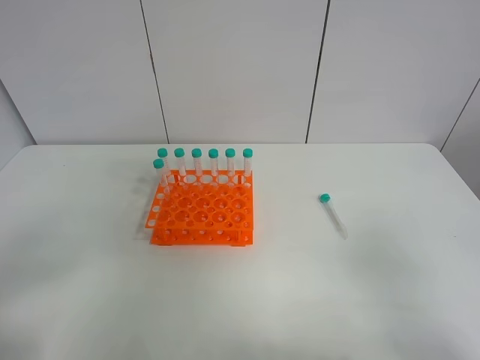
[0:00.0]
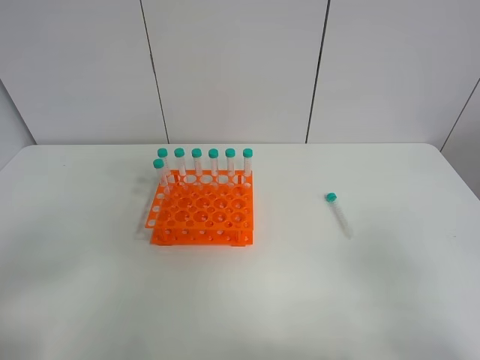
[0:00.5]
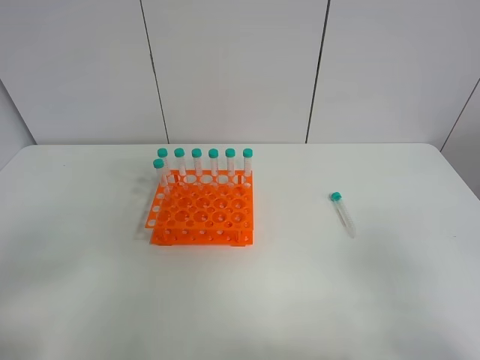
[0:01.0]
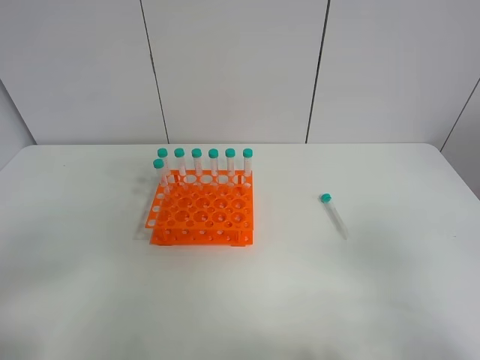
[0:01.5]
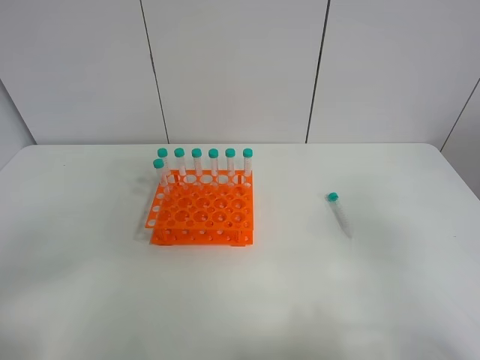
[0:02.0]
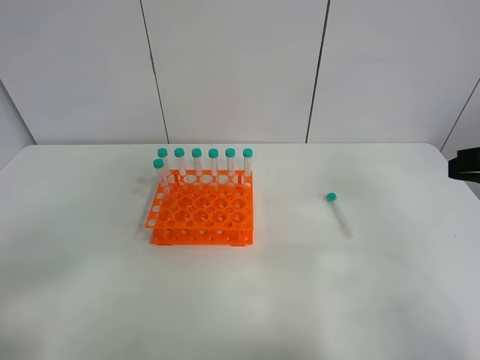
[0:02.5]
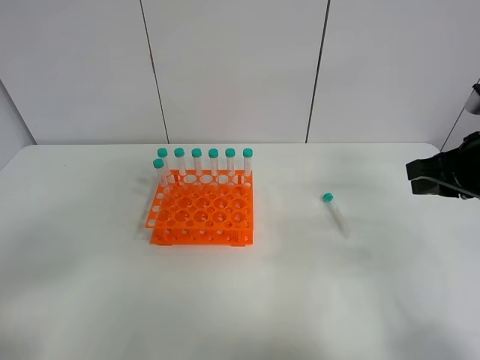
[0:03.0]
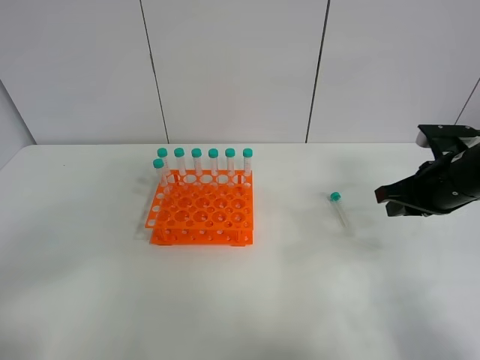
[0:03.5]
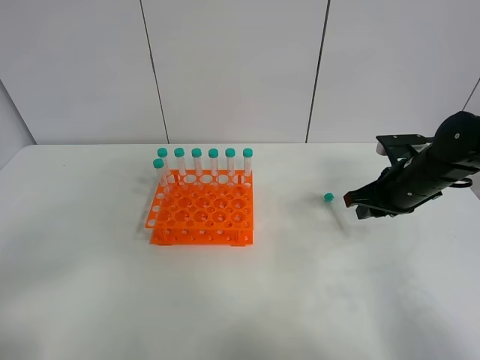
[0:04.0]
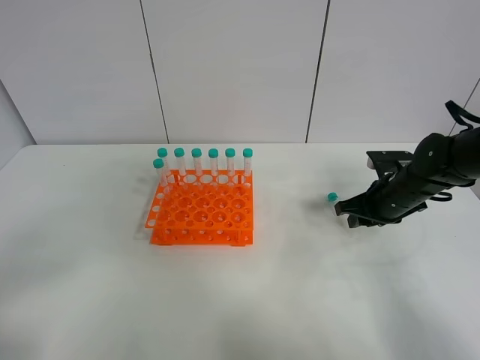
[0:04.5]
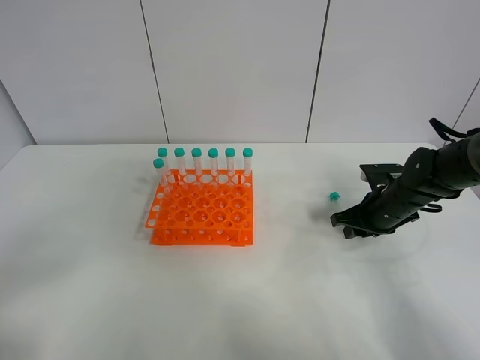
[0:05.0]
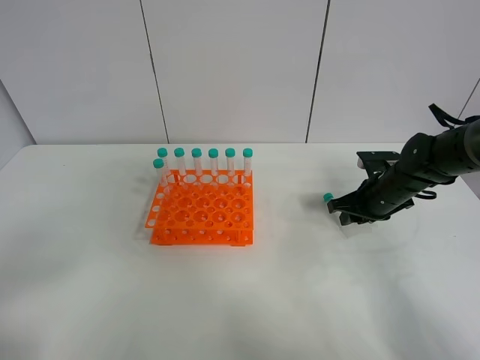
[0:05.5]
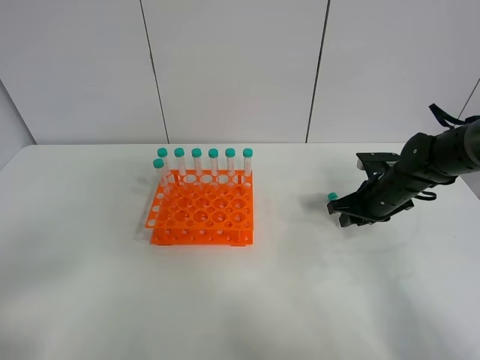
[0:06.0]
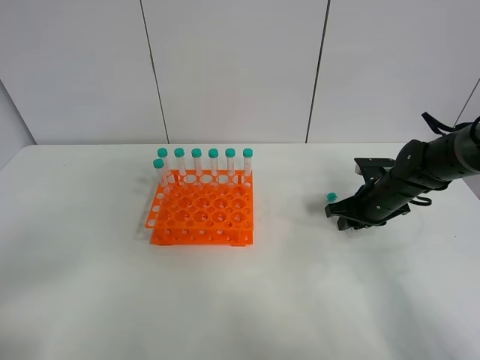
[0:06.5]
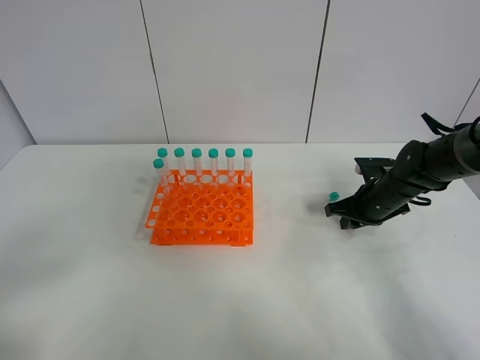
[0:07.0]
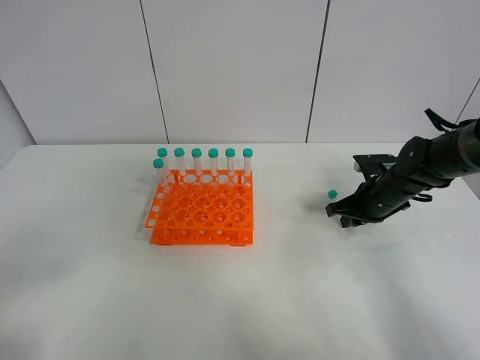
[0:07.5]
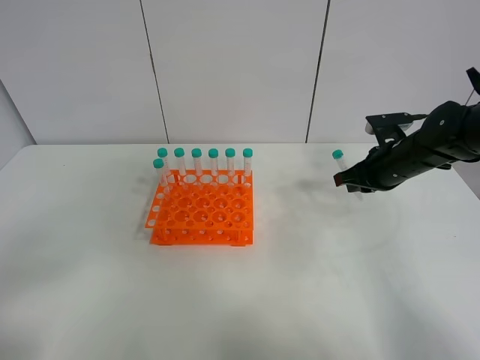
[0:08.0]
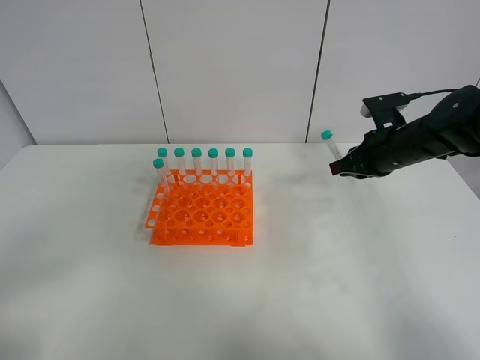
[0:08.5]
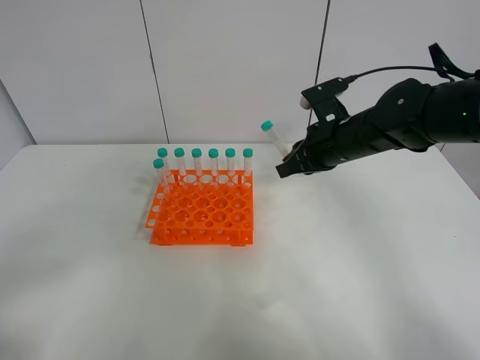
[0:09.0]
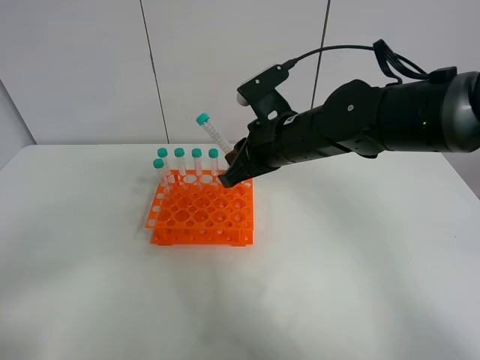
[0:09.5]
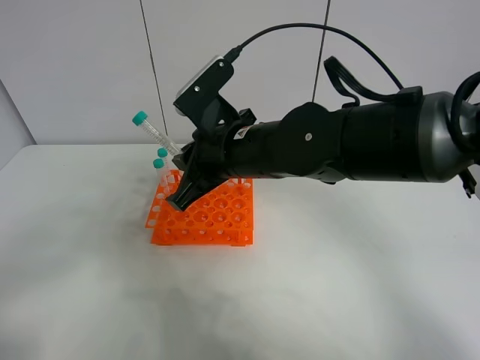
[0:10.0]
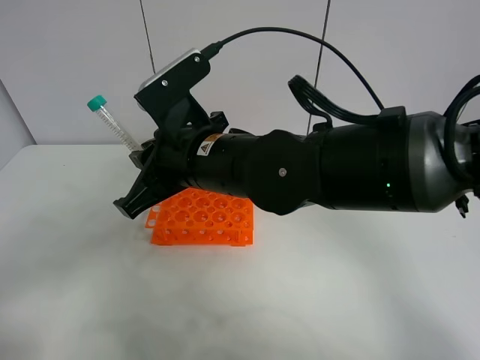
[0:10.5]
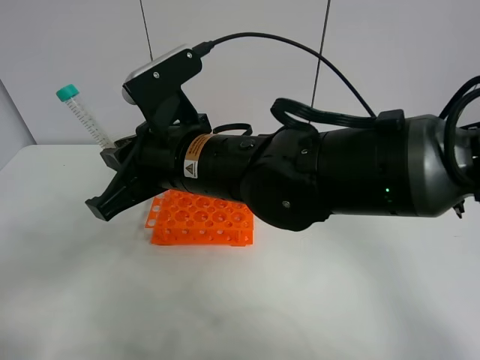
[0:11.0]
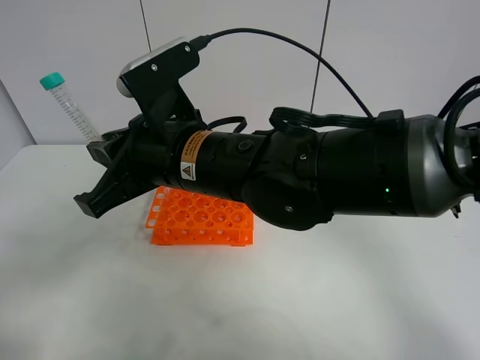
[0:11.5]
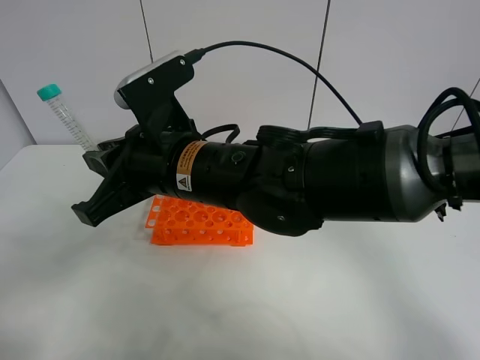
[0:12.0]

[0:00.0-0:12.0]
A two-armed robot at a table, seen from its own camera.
Task of the whole recording: Put the test tube on the table back onto the test tube rack.
Step, 0.0 to 8.0 s: Pick up the test tube with the right gripper.
2.0 to 4.0 s: The right gripper is displaced forward and downward by approximately 30 cm, and opens up.
4.0 to 6.0 s: The right gripper heads downward, covering roughly 5 cm.
6.0 to 8.0 s: The right gripper goes approximately 5 cm upward, and closes.
8.0 to 10.0 s: The right gripper travels to the left by approximately 25 cm.
10.0 to 12.0 s: The right gripper travels to the left by approximately 5 cm.

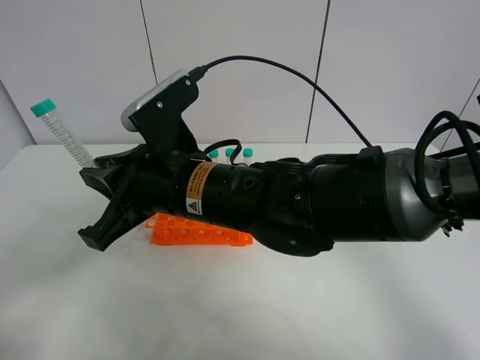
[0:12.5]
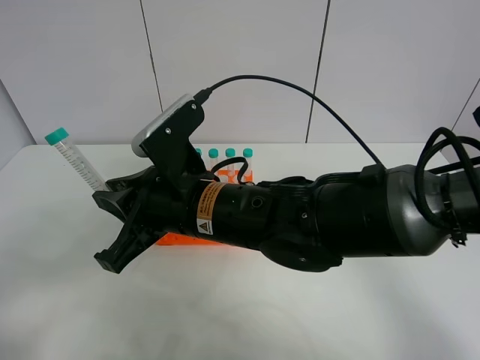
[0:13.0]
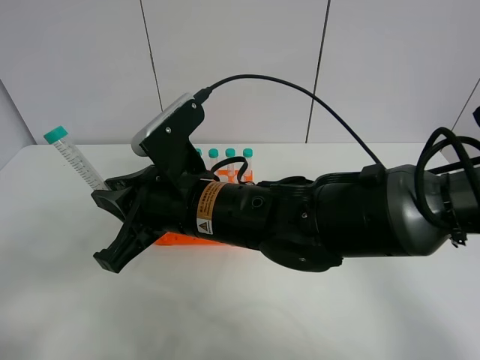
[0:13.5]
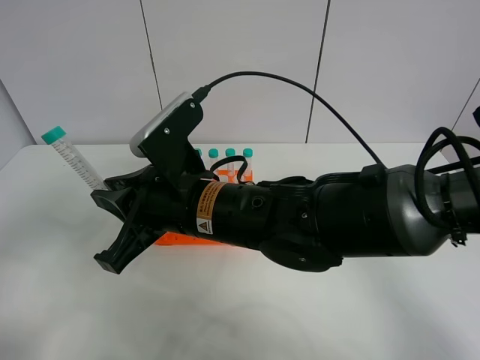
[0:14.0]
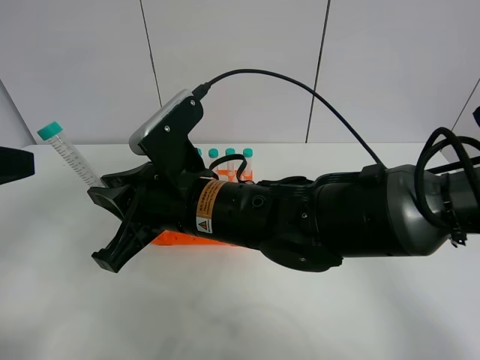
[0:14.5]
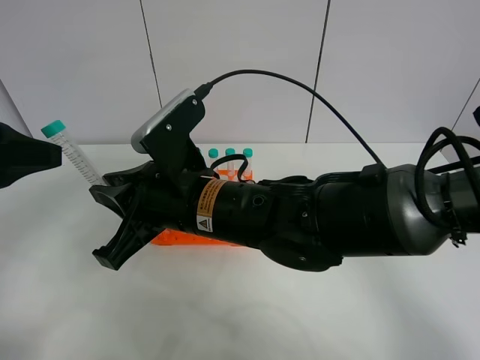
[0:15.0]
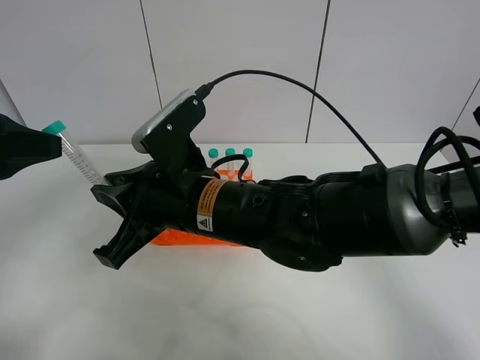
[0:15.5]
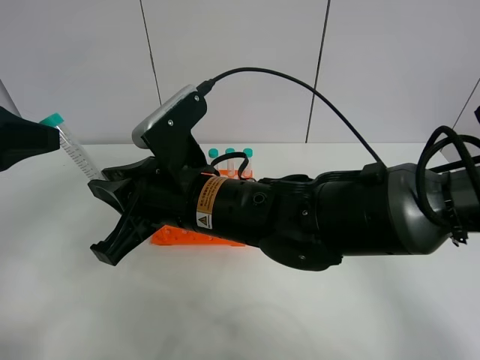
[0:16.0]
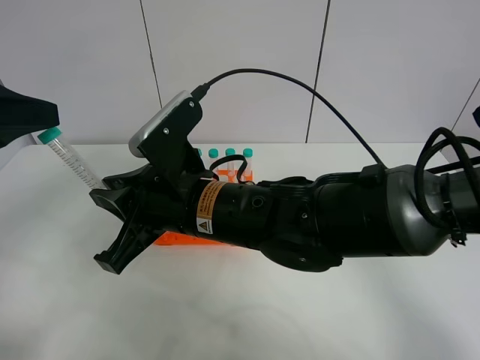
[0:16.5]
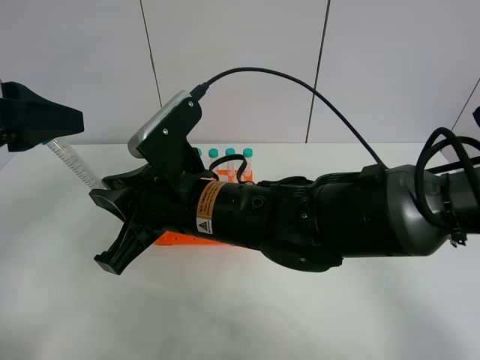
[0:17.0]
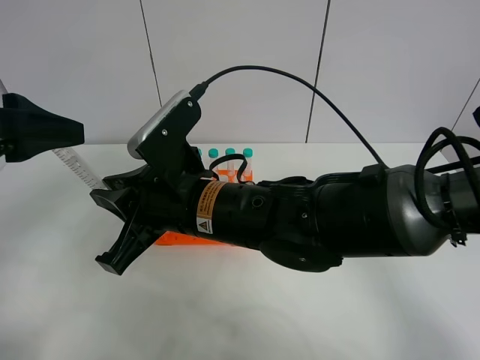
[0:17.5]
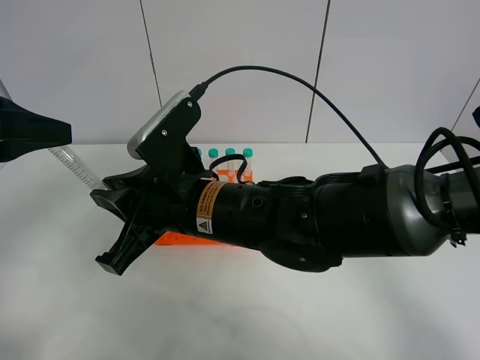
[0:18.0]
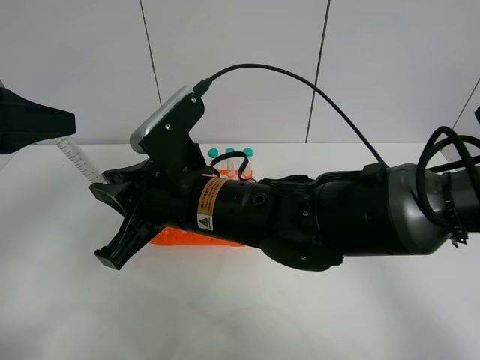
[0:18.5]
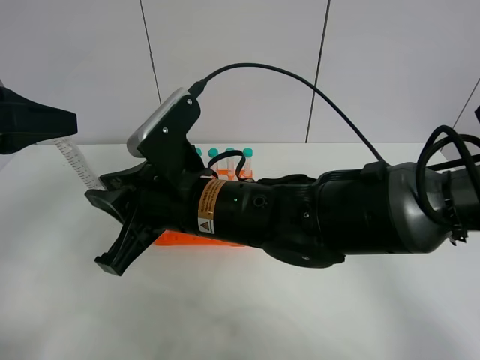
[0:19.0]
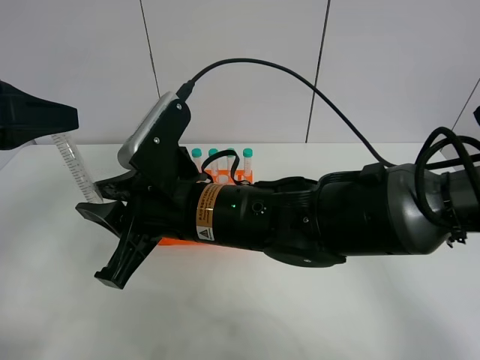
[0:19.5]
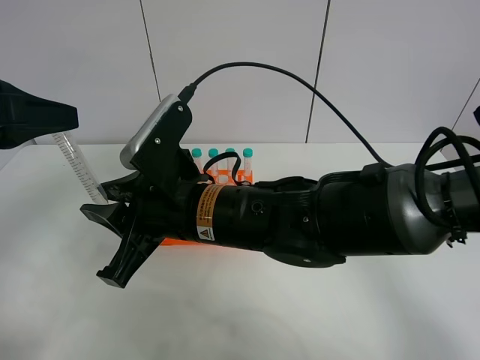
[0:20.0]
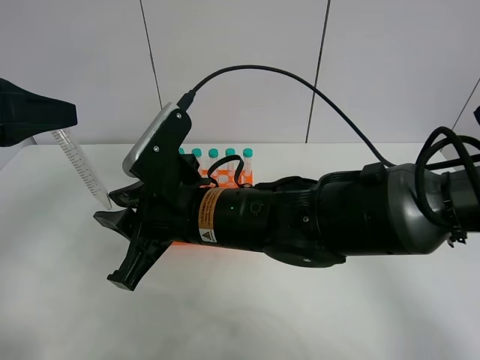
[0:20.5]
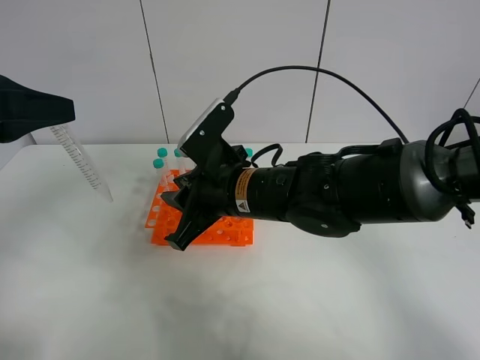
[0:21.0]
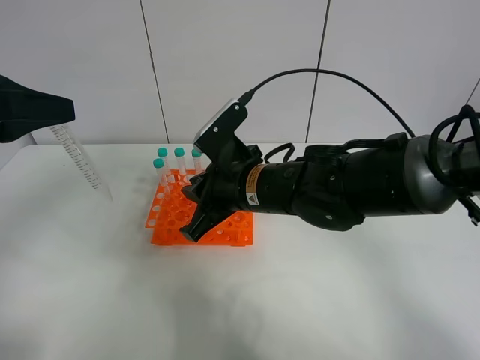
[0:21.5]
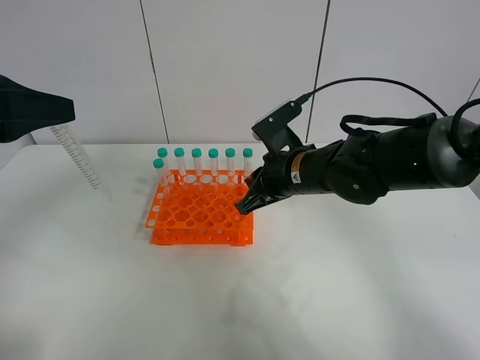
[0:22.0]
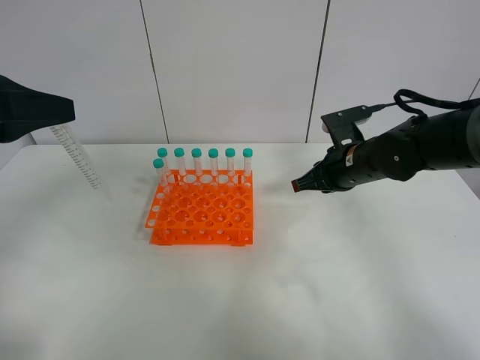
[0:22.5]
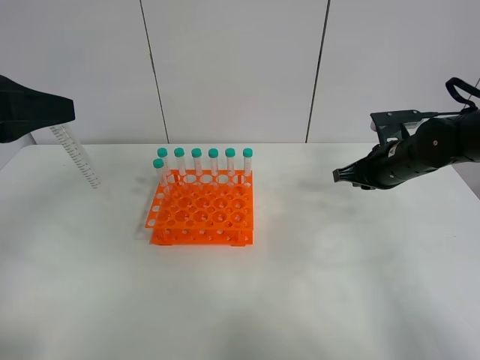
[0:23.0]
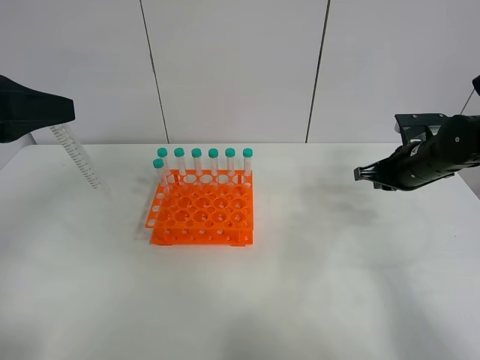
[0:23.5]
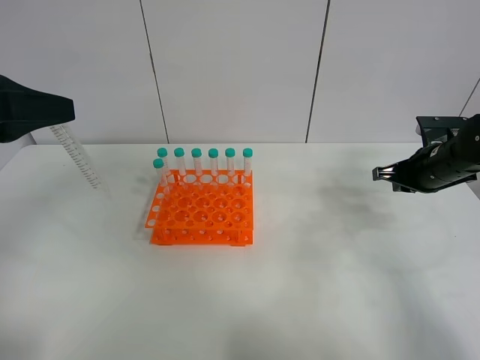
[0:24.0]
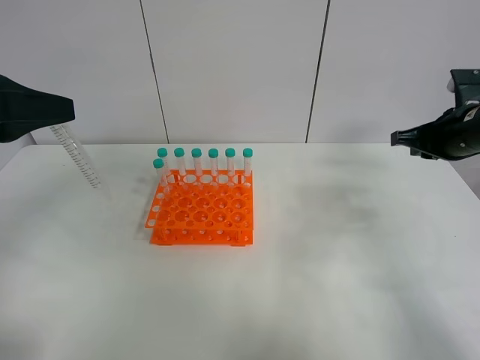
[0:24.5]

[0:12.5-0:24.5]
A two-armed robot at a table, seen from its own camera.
Task of the whole recording: Put the test tube on the table back onto the test tube rack.
Step, 12.5 to 21.5 s: Move the test tube from the right gripper to the left gripper.
12.5 to 14.5 s: The left gripper moves forward and upward, approximately 15 cm.
14.5 to 16.5 s: The grippers move only a little.
16.5 to 18.5 s: The left gripper closes.
18.5 to 20.5 s: The right gripper opens.
20.5 to 22.5 s: The right gripper travels to the right and forward by approximately 25 cm, and closes up.
22.5 to 24.5 s: The right gripper travels to the right and upward by approximately 15 cm.

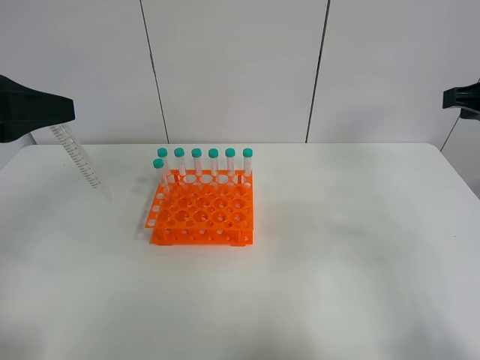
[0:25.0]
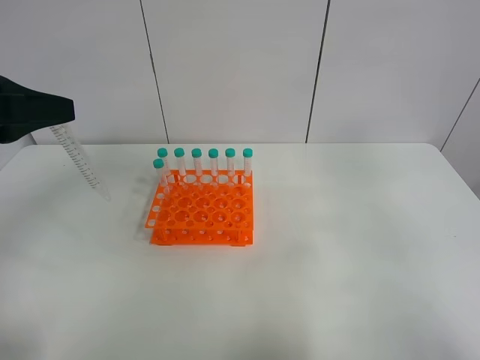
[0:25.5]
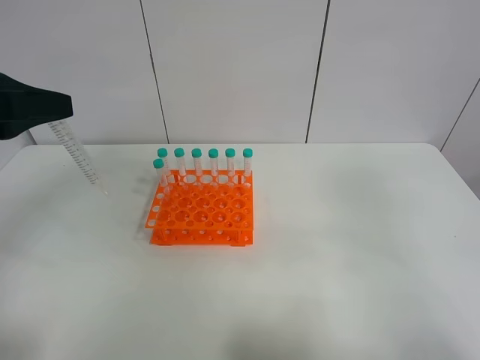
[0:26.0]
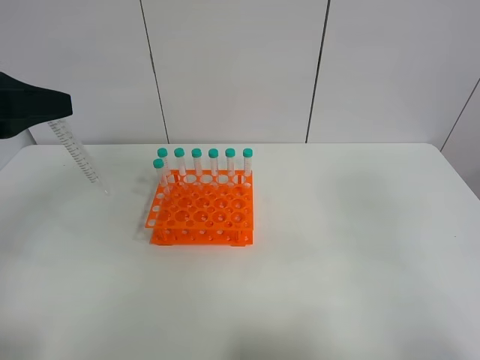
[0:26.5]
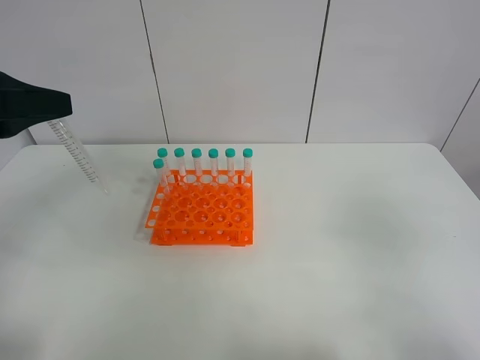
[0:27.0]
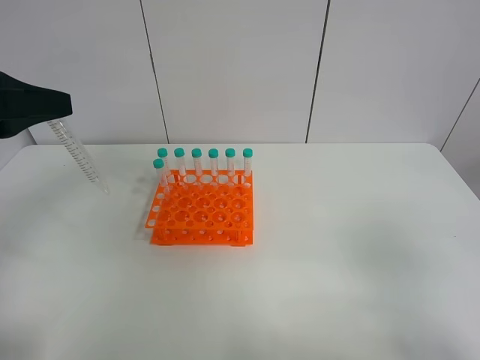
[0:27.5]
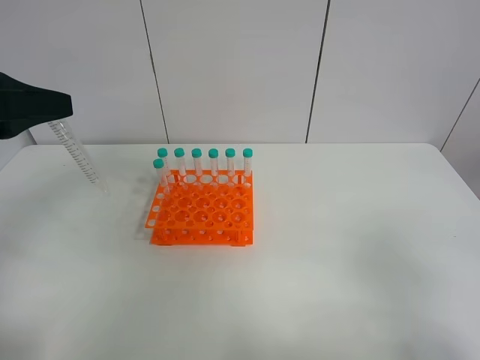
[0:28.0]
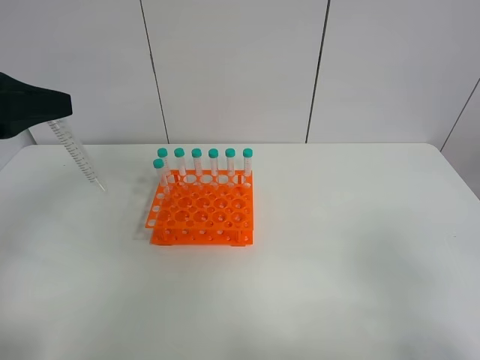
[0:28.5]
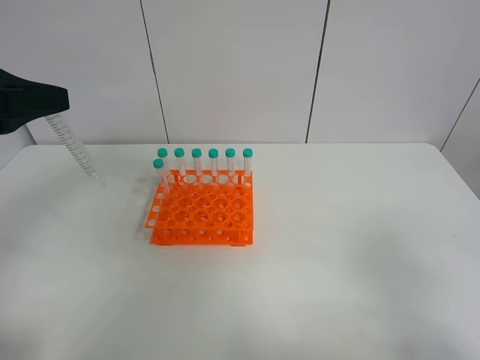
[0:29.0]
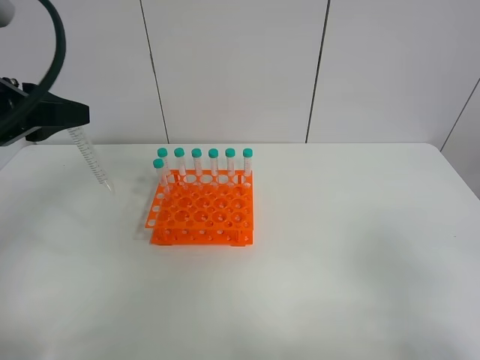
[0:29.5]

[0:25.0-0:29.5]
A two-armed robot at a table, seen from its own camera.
Task of the whole recording: Put the test tube on the table back onto the test tube rack.
25.0 to 27.0 s: The right gripper moves backward, roughly 25 cm.
